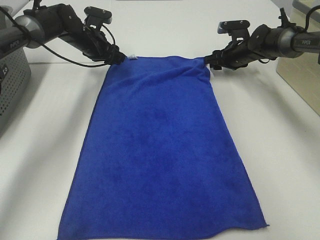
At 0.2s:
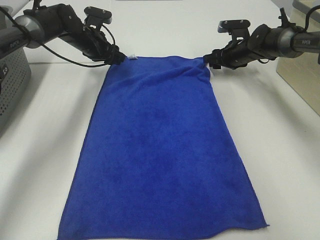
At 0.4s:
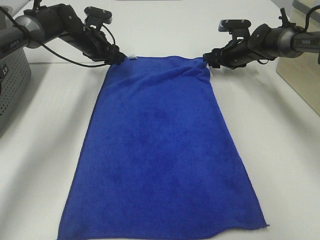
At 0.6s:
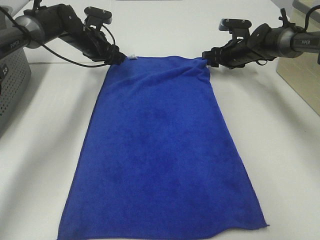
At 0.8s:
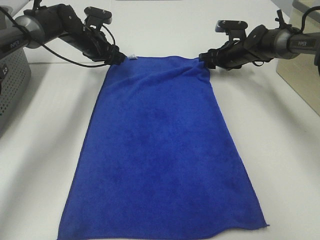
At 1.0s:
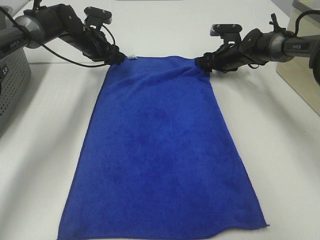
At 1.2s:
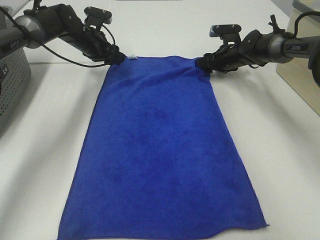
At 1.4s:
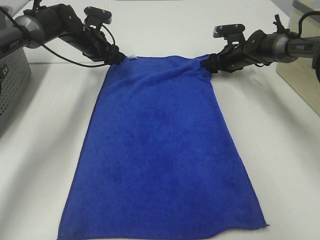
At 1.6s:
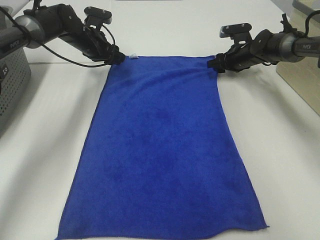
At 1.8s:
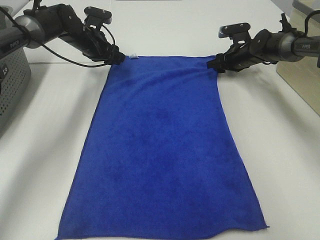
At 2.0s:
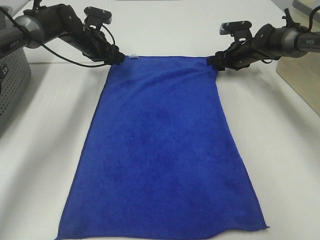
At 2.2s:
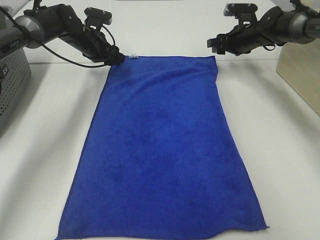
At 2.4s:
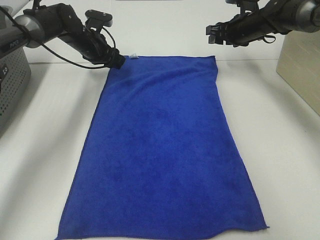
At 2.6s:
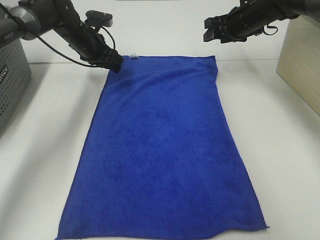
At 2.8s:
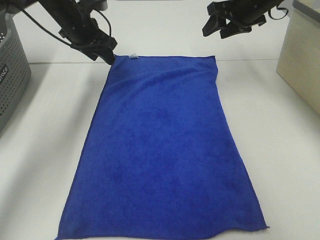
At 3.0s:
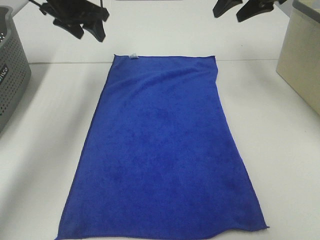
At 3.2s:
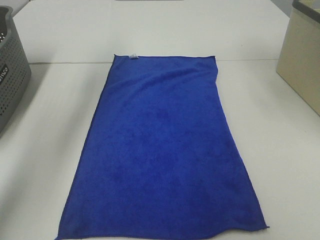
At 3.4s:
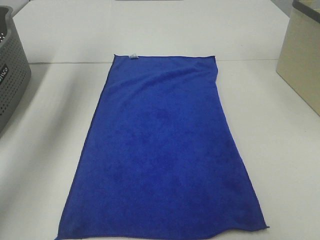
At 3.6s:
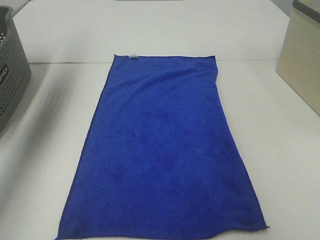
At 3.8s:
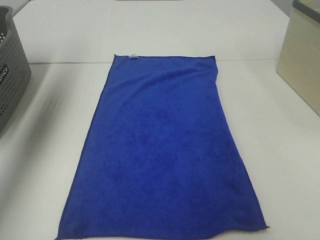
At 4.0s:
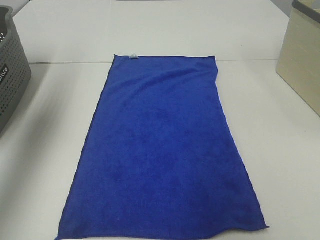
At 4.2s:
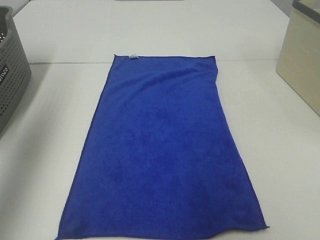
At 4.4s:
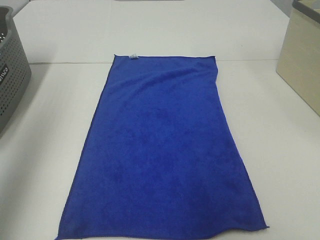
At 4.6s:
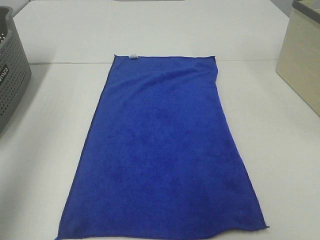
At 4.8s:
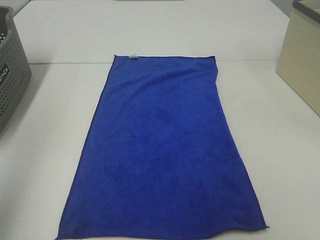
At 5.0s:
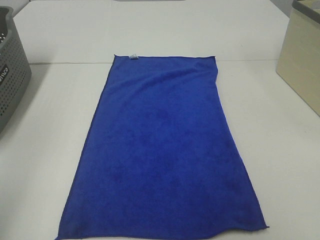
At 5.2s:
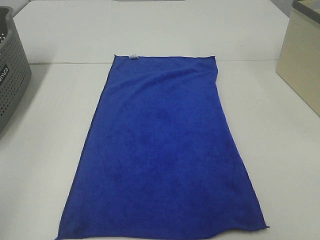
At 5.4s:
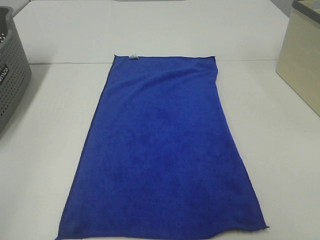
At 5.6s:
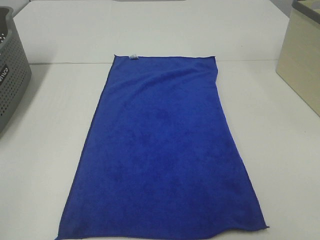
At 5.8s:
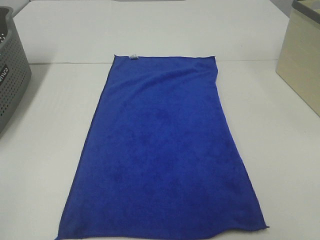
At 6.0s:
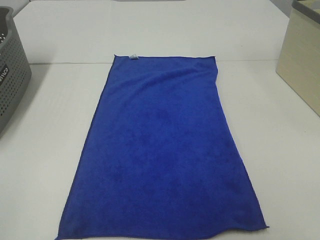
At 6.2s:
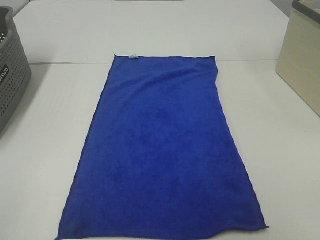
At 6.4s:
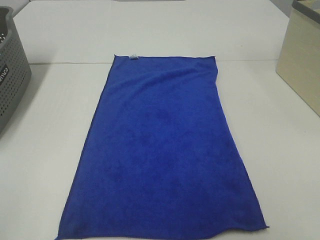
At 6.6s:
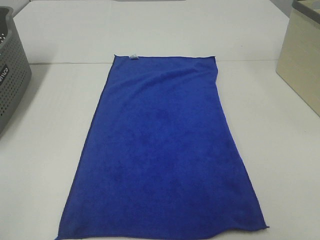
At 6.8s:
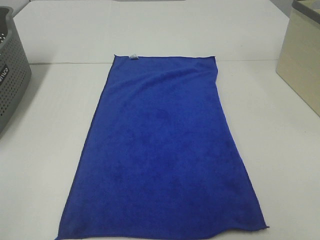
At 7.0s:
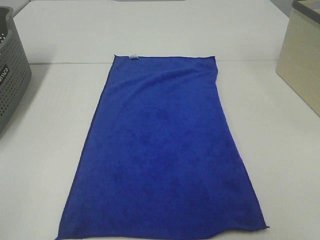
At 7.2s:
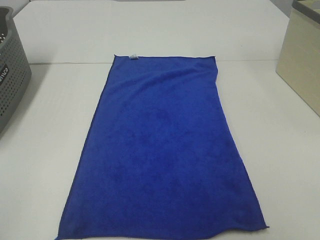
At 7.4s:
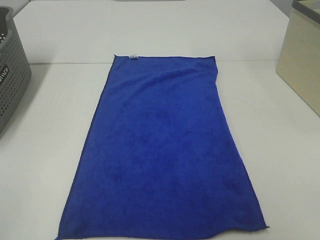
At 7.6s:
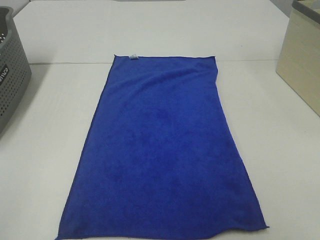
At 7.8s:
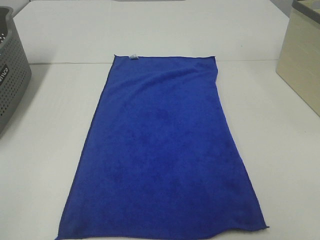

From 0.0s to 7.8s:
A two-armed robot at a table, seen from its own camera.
Task of the whole recording: Remove the towel and place it.
From 0.0s to 1.6s: The grippers stay close to where they were, moving slightly.
From 1.6s to 3.2s: The left gripper travels upward by some 25 cm; the right gripper shifts some 35 cm upward and backward.
From 3.2s to 4.6s: The two grippers go some 35 cm backward.
From 4.6s to 6.2s: The left gripper goes about 20 cm backward and downward.
From 6.2s to 7.8s: The two grippers keep their place.

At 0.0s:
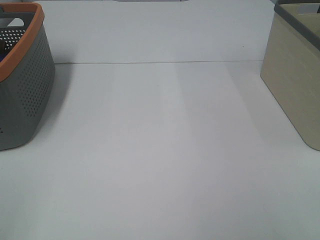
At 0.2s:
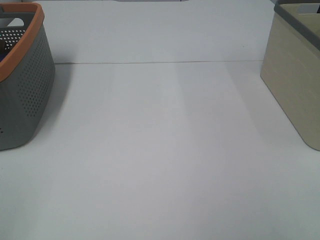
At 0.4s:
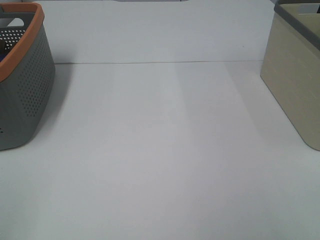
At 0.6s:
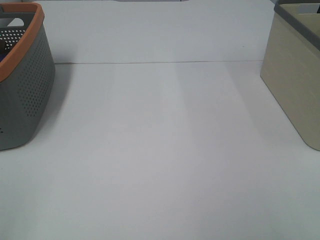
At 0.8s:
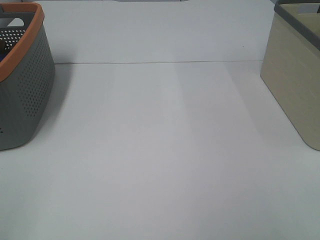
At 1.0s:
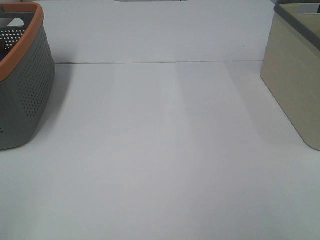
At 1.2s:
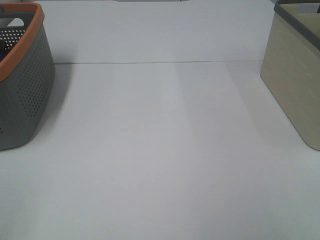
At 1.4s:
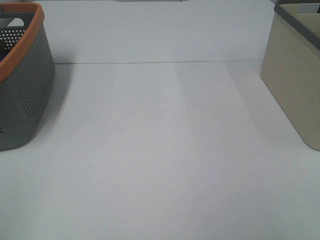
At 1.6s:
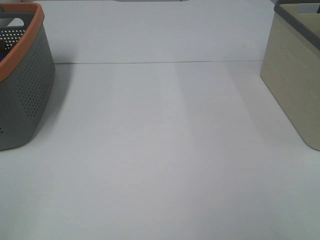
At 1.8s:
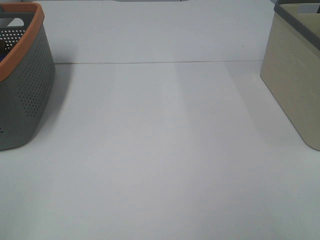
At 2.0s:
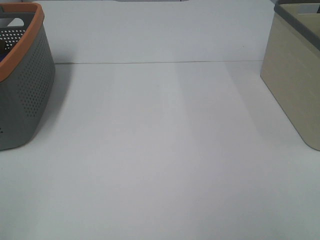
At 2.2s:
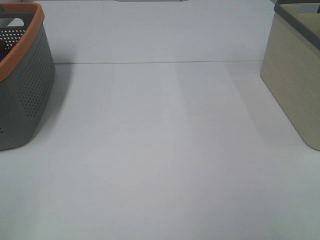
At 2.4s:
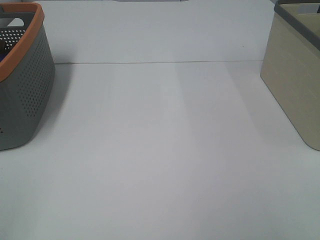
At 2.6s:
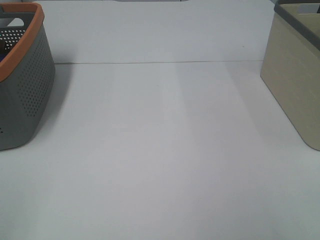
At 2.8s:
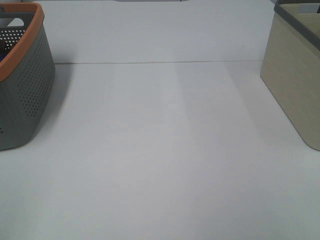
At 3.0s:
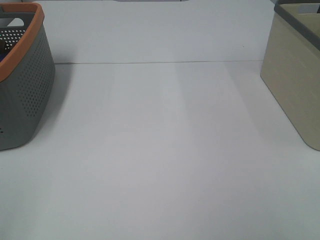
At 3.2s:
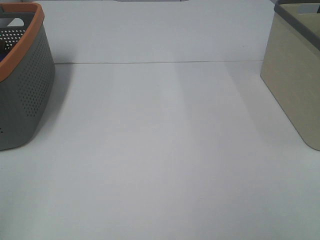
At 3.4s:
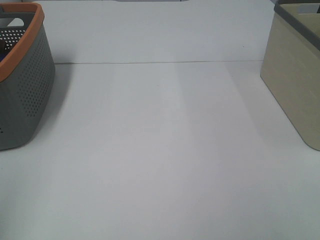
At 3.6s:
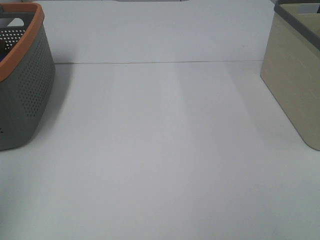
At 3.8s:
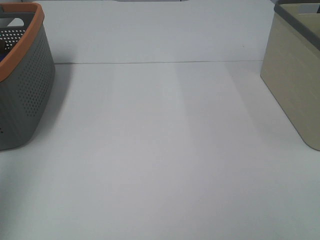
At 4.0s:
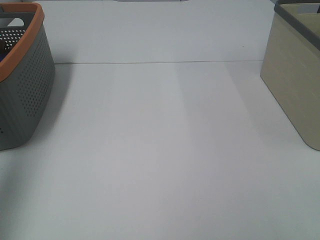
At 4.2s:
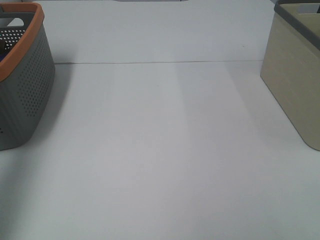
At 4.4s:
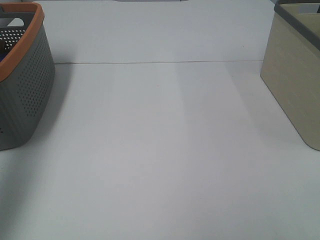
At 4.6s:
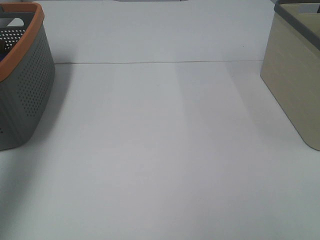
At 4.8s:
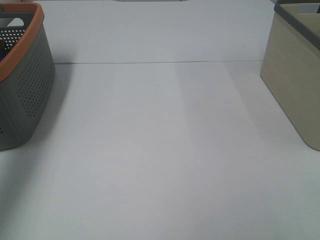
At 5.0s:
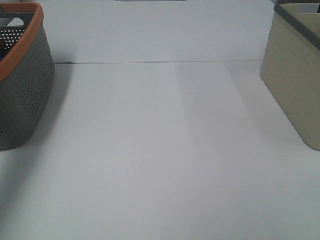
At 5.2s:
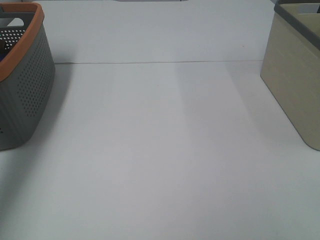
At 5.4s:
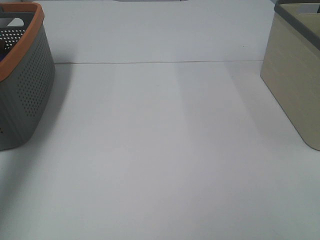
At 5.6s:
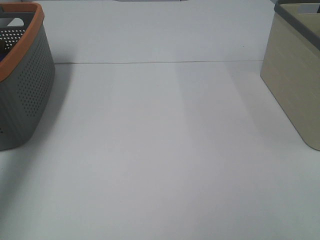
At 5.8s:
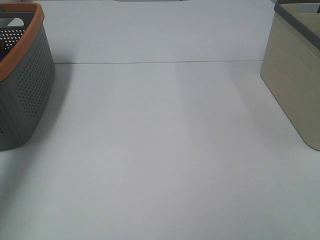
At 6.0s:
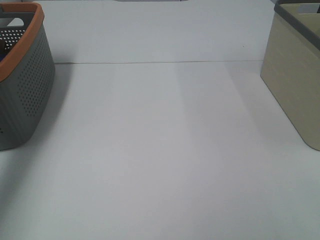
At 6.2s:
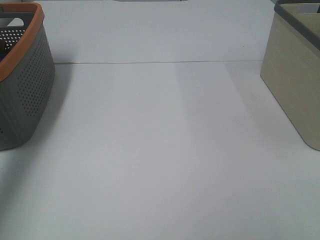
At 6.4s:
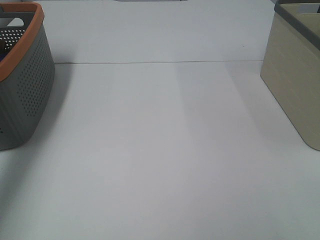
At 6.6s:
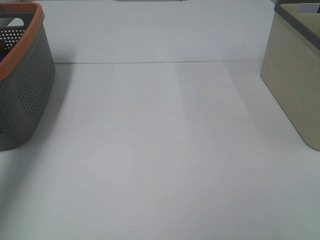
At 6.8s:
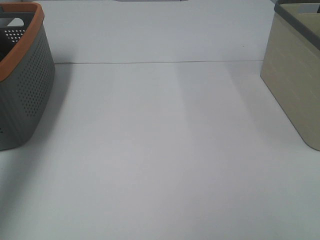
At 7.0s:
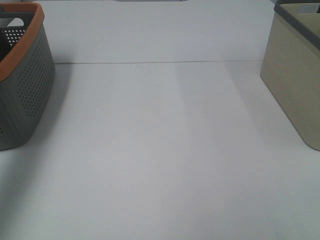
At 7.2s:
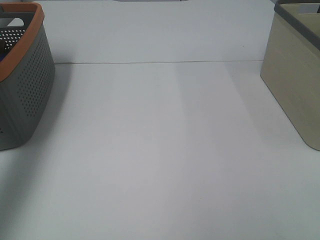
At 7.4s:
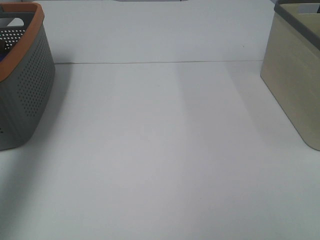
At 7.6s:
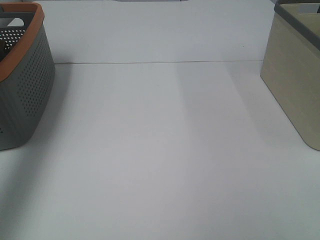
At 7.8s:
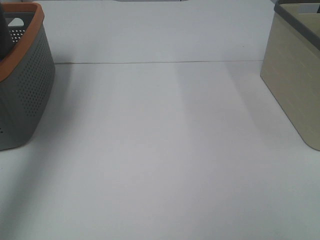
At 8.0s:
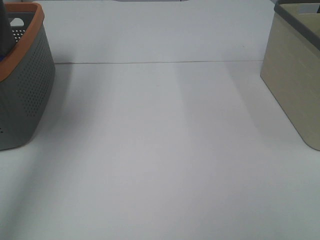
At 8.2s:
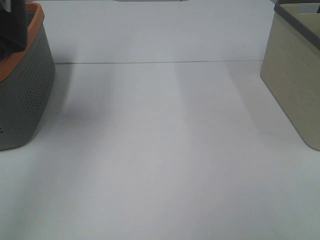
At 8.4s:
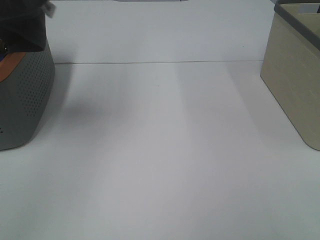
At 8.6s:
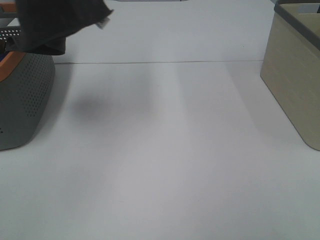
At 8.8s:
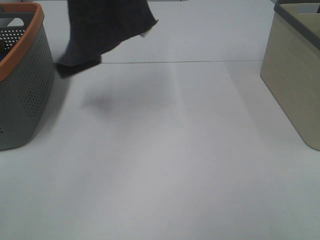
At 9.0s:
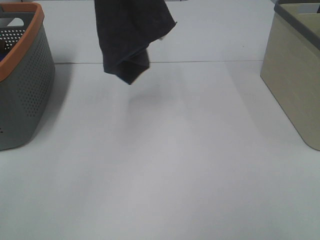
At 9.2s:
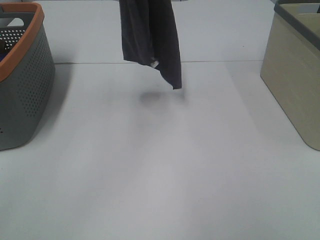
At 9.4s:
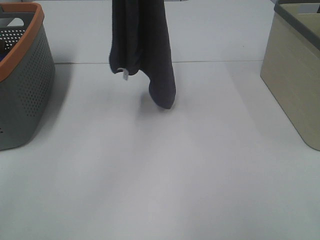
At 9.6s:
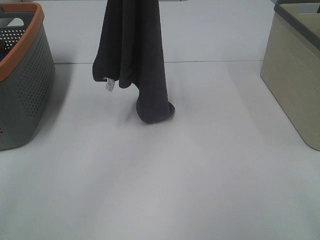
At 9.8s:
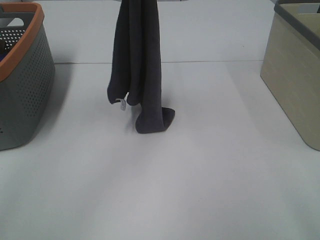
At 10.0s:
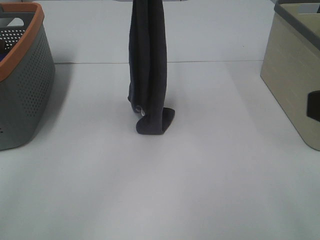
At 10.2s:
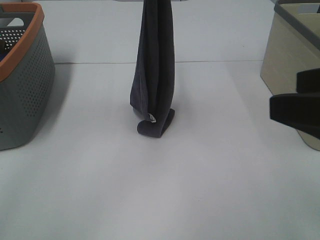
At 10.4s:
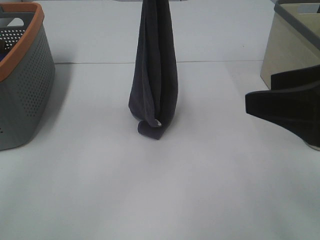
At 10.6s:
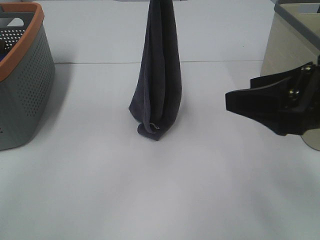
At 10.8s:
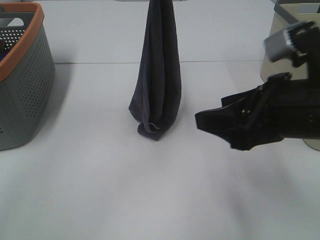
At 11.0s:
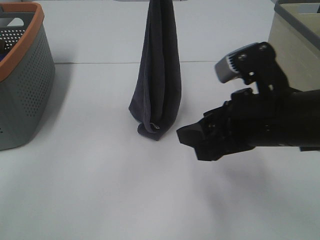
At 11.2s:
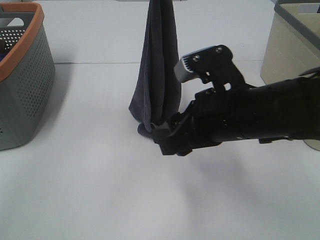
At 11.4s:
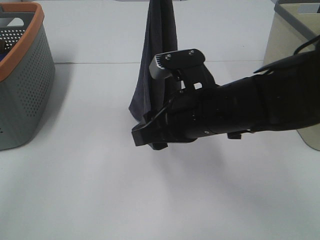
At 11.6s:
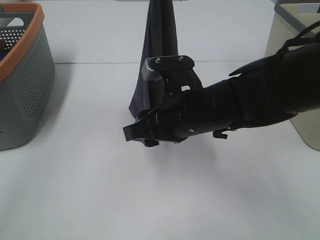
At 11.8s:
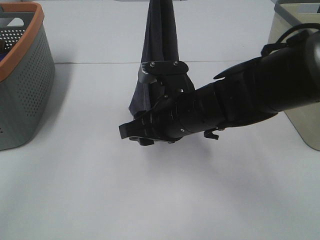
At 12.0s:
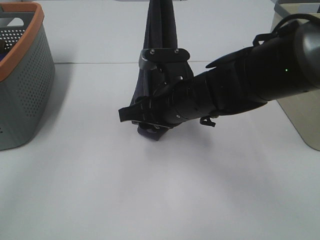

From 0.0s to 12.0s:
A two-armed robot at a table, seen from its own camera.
Task of the whole recording: Remove the towel and place it.
From 0.0s to 3.0s: Both grippers stay put.
From 3.0s to 4.4s: The left gripper shifts about 30 cm forward.
From 6.0s to 7.6s: The left gripper heads upward and backward, covering some 30 cm.
From 7.6s to 9.0s: The left gripper heads to the right, covering about 20 cm.
From 9.0s to 10.4s: The left gripper heads downward and to the right, covering roughly 15 cm; the right gripper heads forward and to the left, covering some 15 cm.
From 10.4s to 12.0s: The right gripper shifts some 25 cm to the left, forward and downward.

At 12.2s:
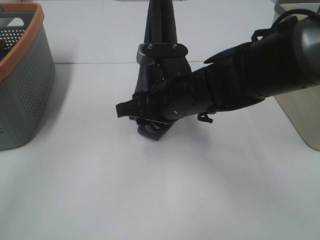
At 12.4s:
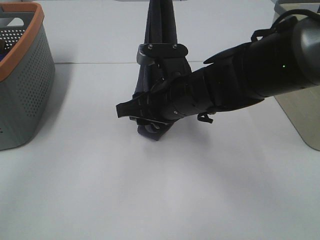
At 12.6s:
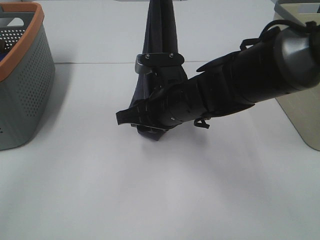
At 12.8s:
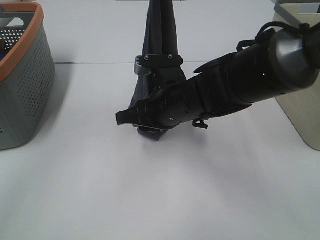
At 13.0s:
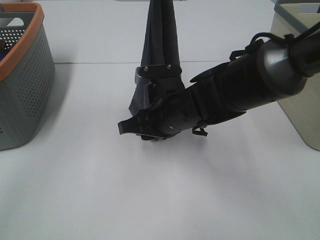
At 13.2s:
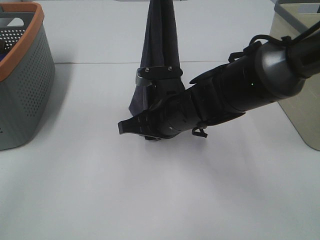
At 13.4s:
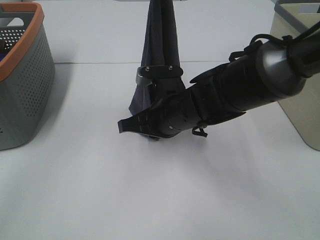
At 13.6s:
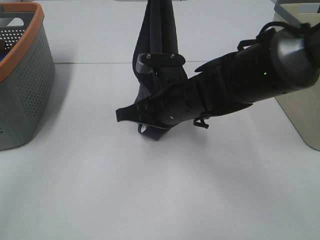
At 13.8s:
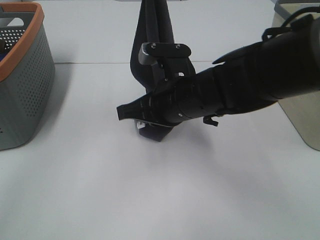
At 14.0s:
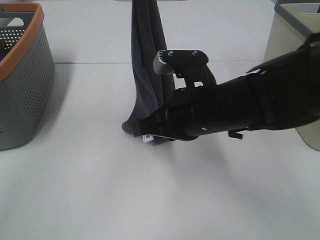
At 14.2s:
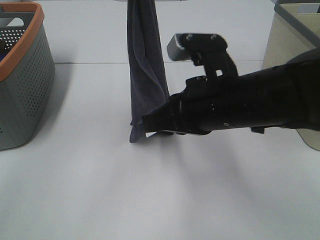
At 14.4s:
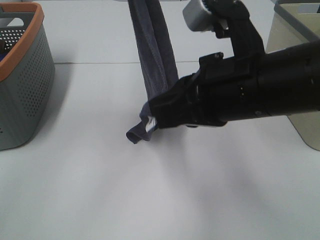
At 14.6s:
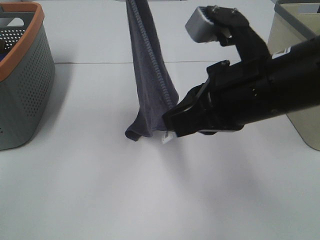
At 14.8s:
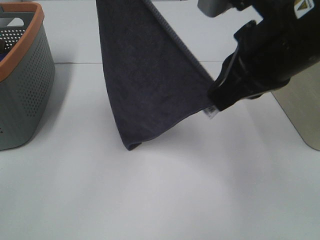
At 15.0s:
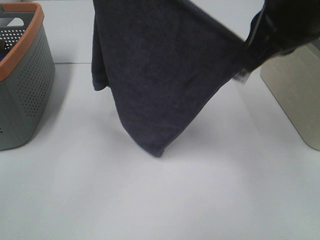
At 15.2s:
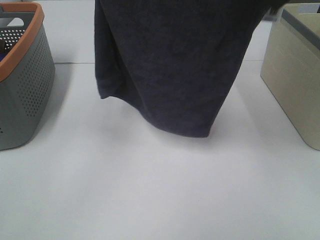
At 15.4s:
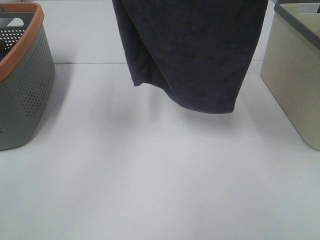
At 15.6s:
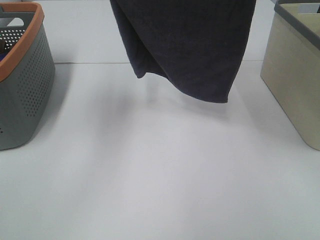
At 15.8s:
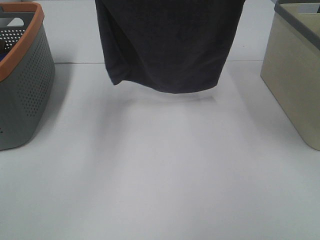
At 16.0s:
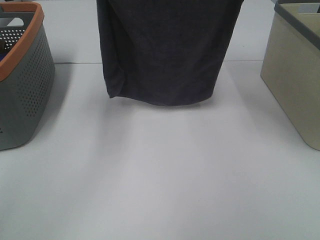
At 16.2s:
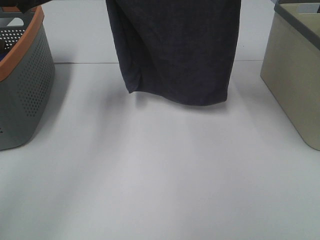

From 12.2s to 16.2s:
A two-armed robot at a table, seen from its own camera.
Task of the whole recording: Remove the towel and place it.
Step, from 13.4s to 15.0s: Right hand: spread the grey towel flat on the table.
Step, from 13.4s to 15.2s: Left hand: spread the grey towel flat on the table.
From 12.2s to 13.6s: The right gripper closes its fingers.
From 13.6s to 14.8s: The left gripper shifts roughly 10 cm to the left and upward, while the right gripper shifts roughly 20 cm upward, to the right and backward.
From 14.8s to 16.2s: The left gripper heads downward and forward, covering roughly 15 cm; the right gripper shifts roughly 15 cm forward.
